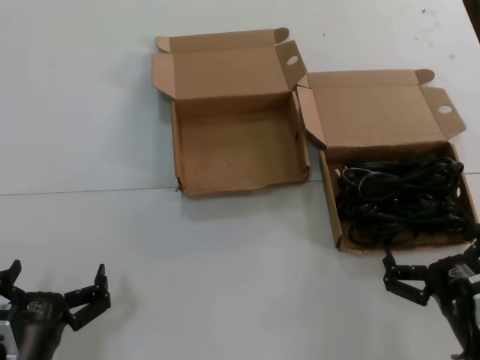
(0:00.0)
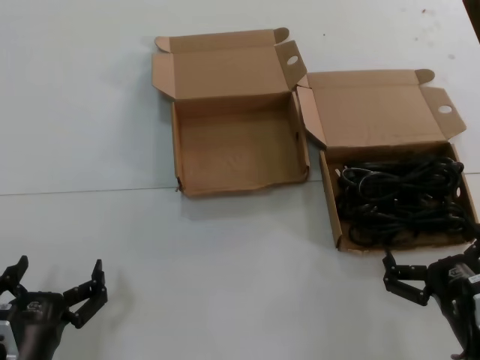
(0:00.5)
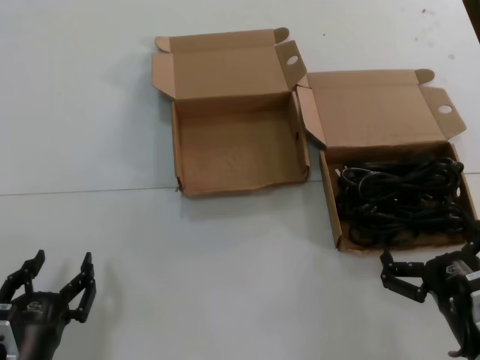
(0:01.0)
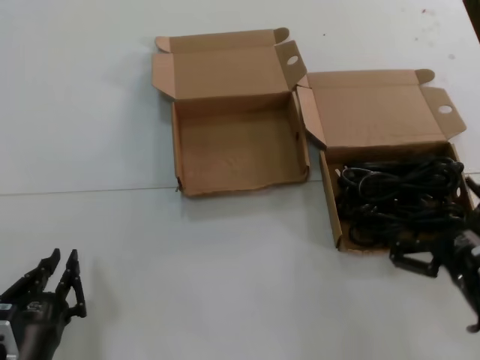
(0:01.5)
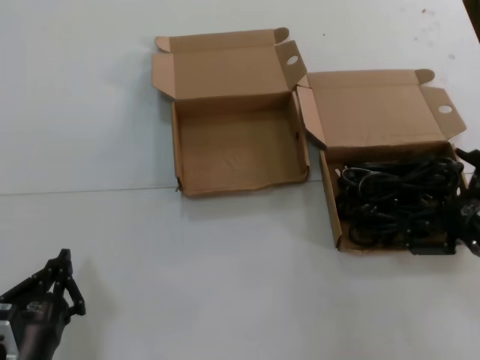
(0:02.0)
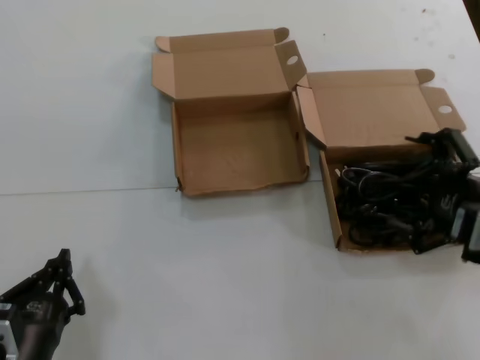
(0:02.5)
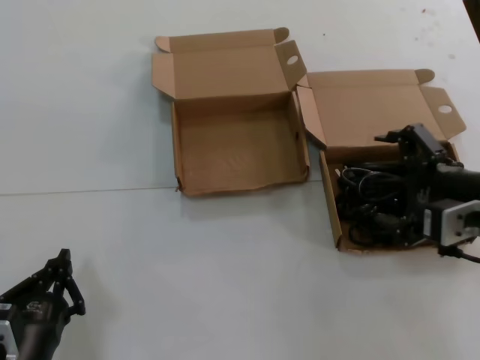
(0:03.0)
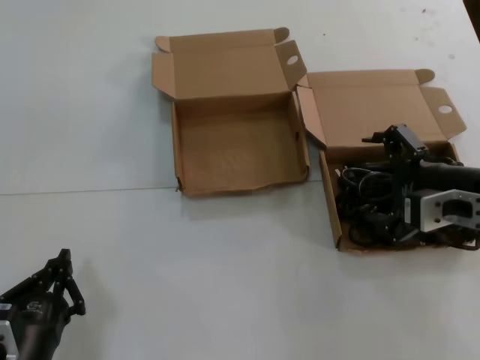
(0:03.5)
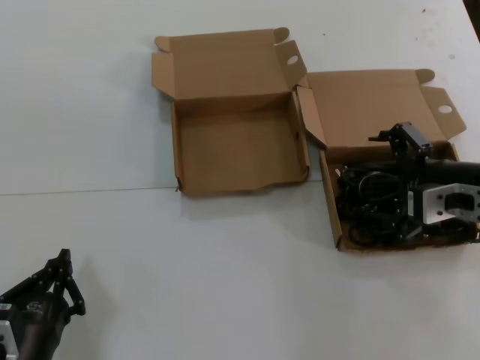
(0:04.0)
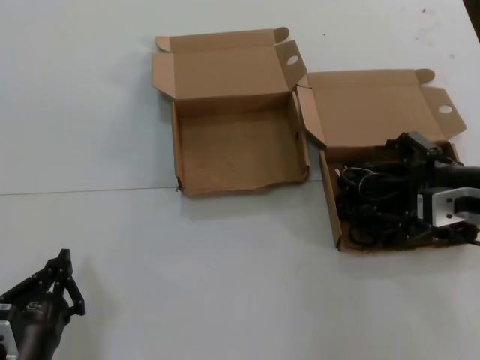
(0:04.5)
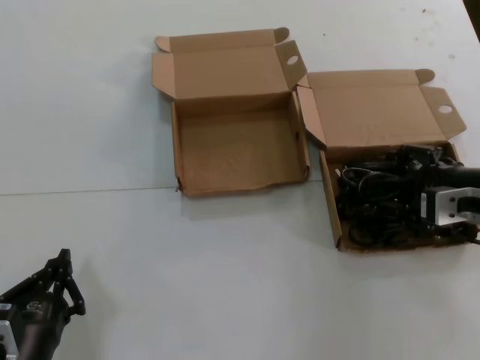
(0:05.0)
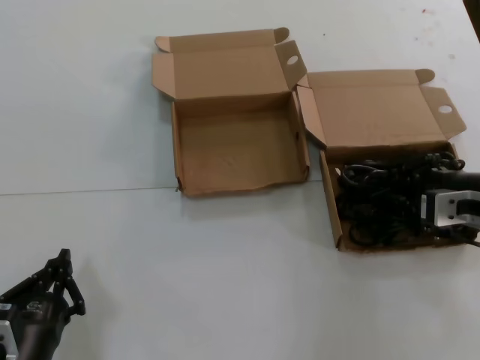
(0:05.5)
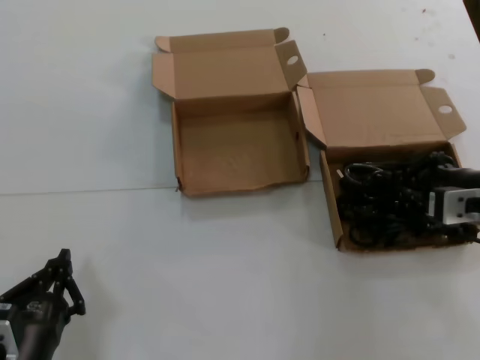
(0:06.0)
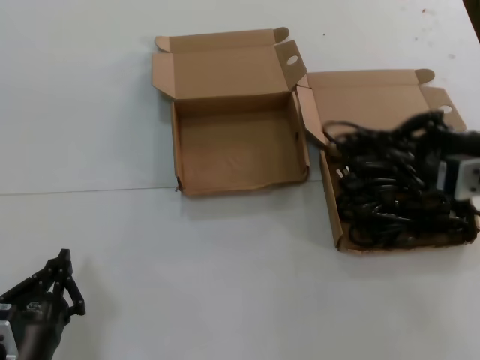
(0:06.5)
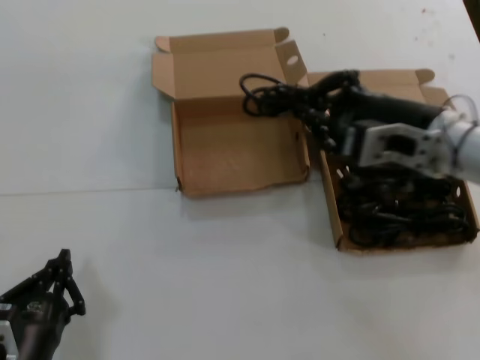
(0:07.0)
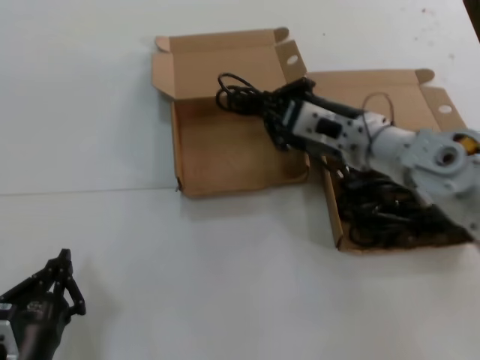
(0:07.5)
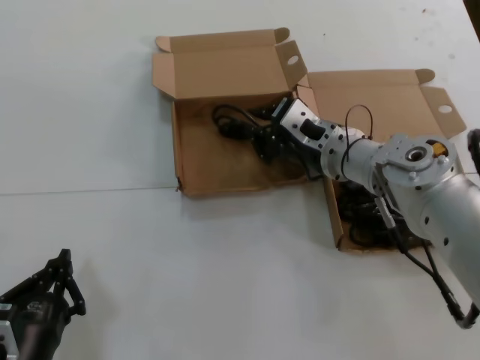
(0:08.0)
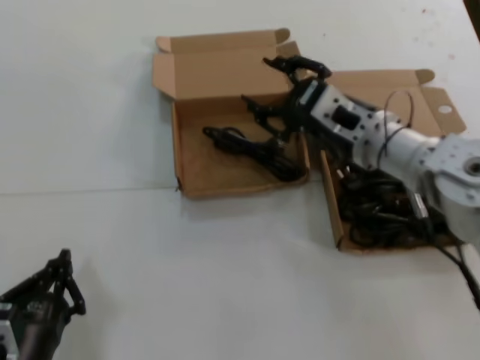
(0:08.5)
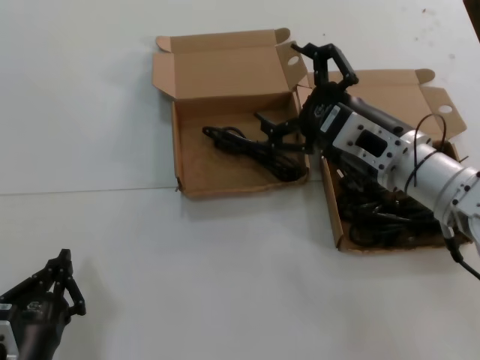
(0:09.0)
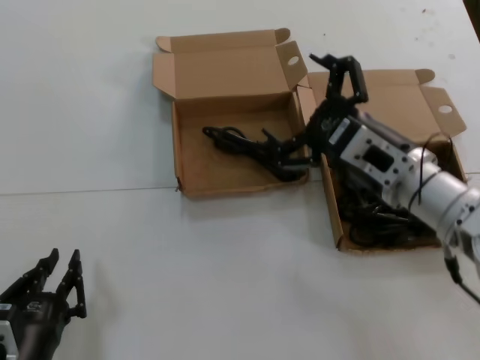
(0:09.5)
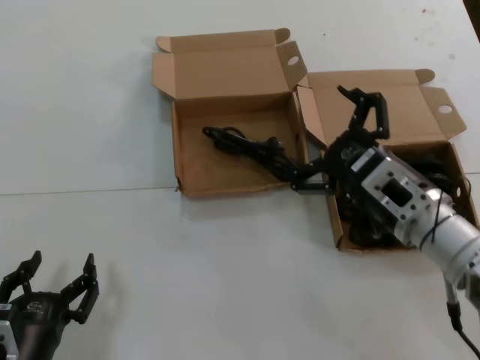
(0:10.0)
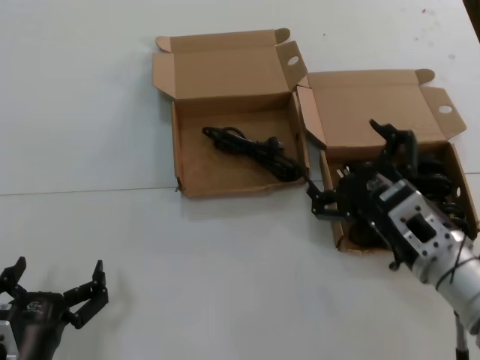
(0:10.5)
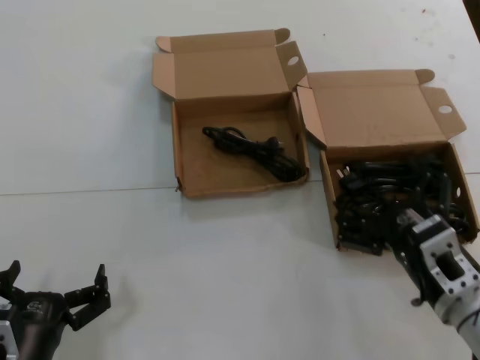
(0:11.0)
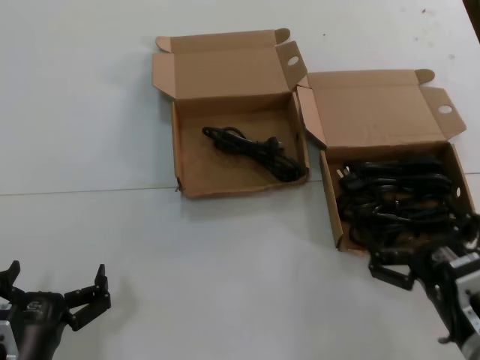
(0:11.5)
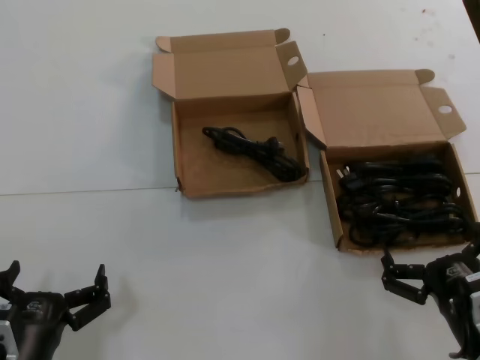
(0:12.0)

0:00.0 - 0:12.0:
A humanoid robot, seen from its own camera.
Task of the whole recording: take the parts from the box containing them and put them into an empty box.
Step, 0:00.0 - 0:05.5: Grasp the data cable.
Step, 0:06.0 - 0:08.0: Place the data cable in the another box.
0:00.0 - 0:02.0: The right hand heads upward and to the right, covering some 10 cm.
0:02.0 - 0:04.0: The right hand goes approximately 10 cm forward and upward.
0:04.0 - 0:06.0: The hands stay close to where they were, moving slightly.
0:06.0 - 0:08.0: The right hand shifts some 20 cm to the left and forward.
0:08.0 - 0:10.0: The right hand shifts roughly 15 cm backward and to the right.
0:10.0 - 0:12.0: The right hand is displaced backward, downward and to the right by approximately 20 cm.

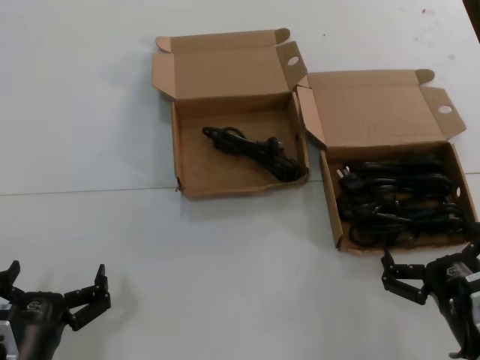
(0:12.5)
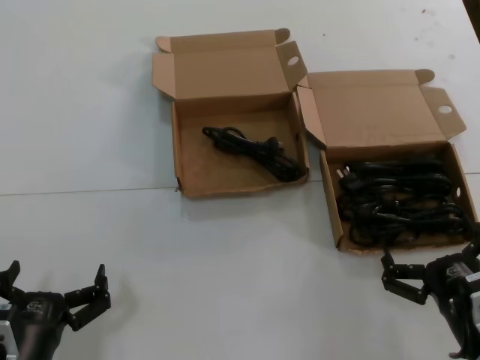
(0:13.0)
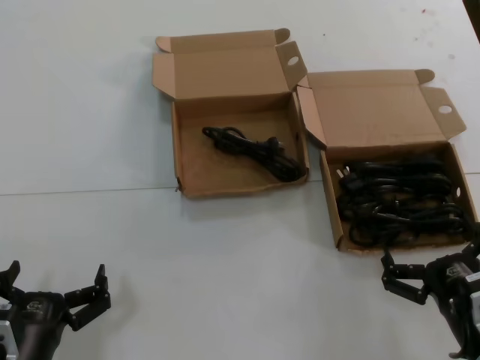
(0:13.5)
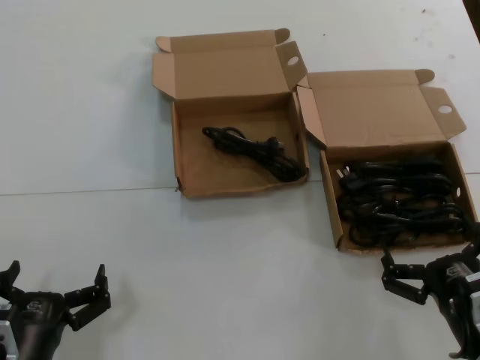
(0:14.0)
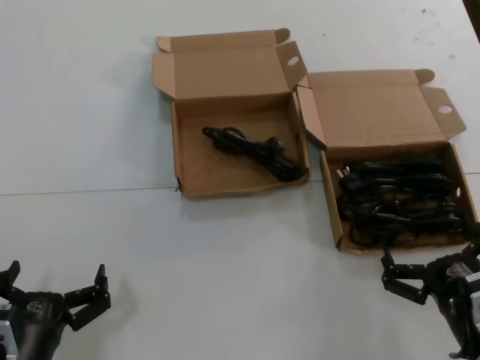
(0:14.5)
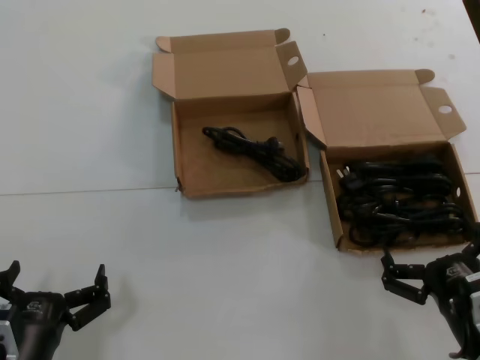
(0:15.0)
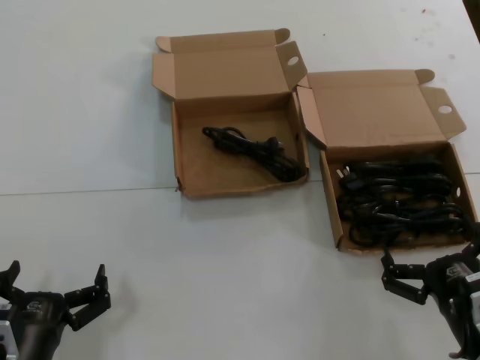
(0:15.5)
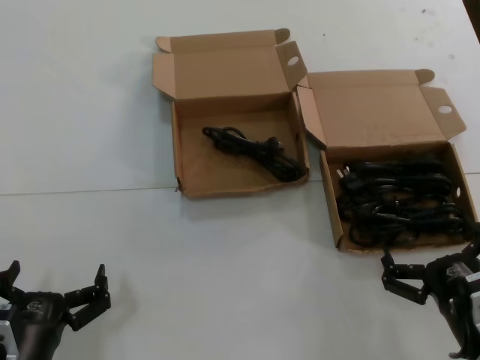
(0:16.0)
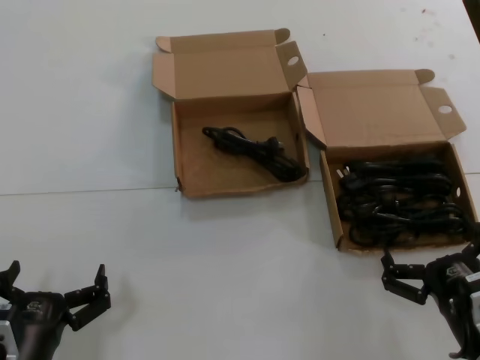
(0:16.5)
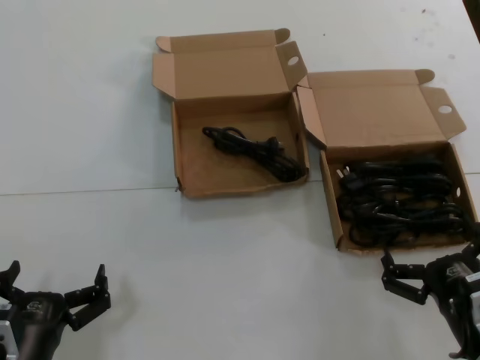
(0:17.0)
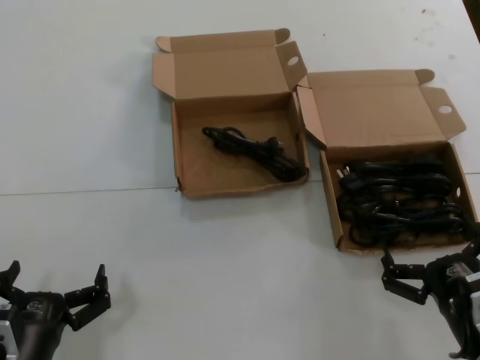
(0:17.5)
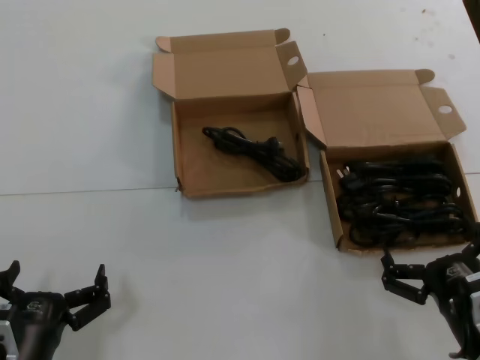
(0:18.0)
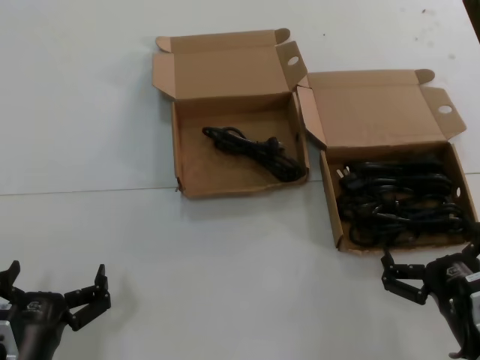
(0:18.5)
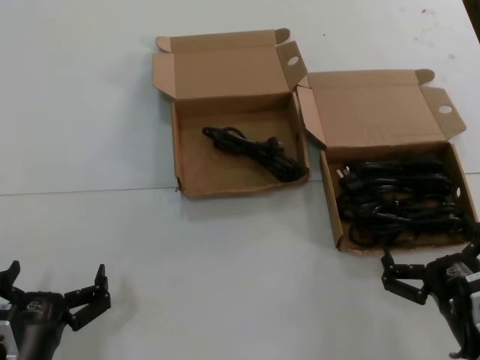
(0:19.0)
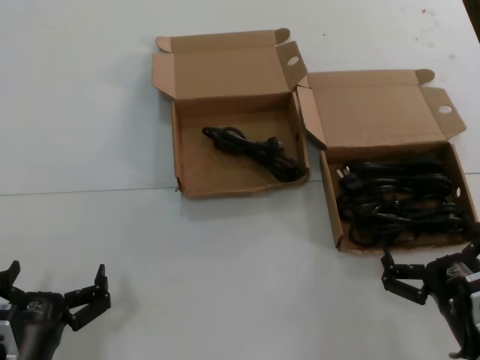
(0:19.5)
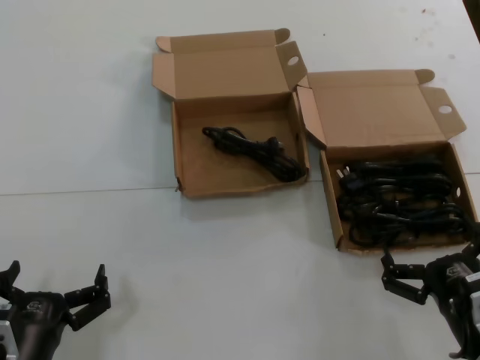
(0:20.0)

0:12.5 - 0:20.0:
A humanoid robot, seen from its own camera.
Task of the whole recording: take the parts from the box containing them and put them into an empty box.
0:12.5 - 0:20.0: Neither hand changes place.

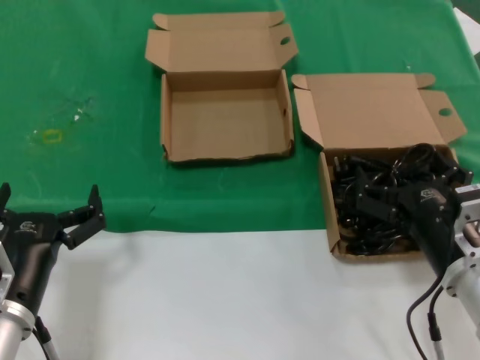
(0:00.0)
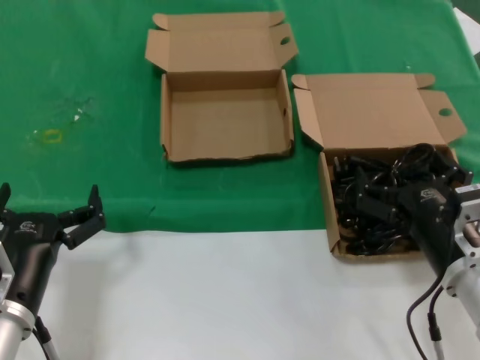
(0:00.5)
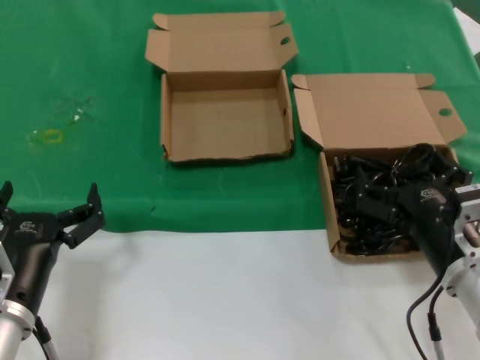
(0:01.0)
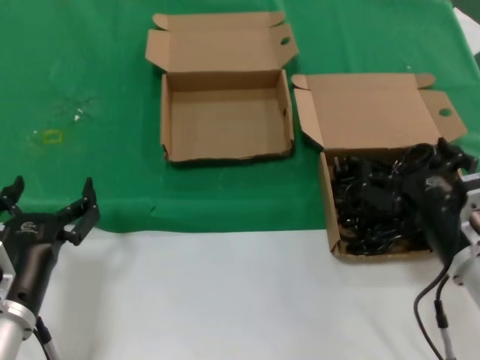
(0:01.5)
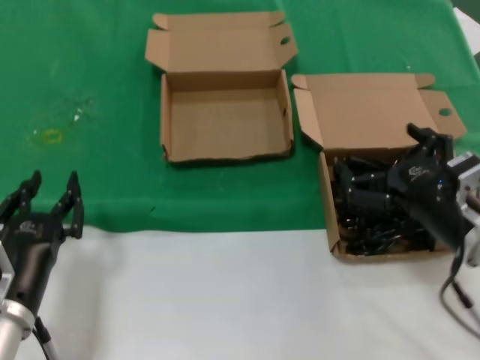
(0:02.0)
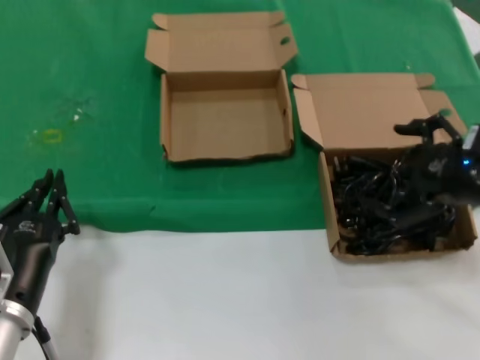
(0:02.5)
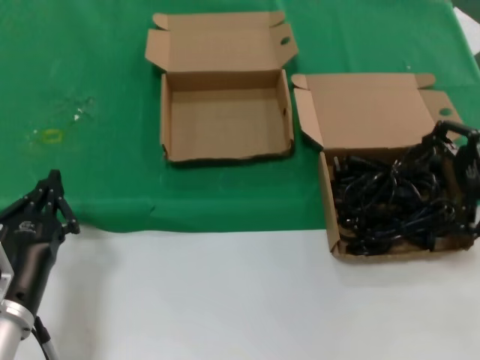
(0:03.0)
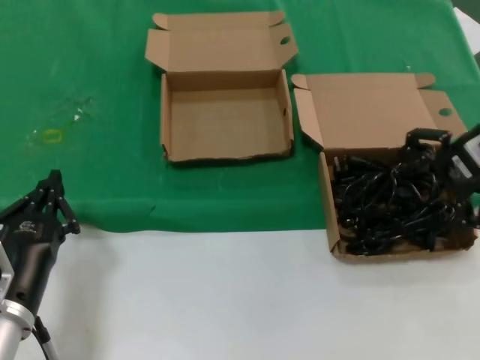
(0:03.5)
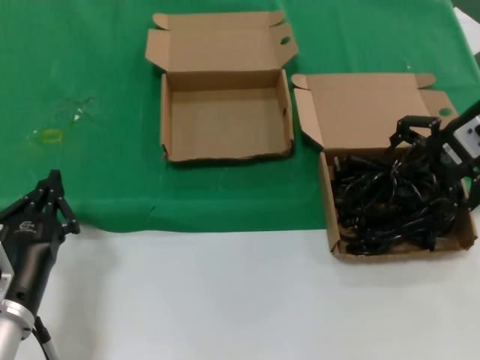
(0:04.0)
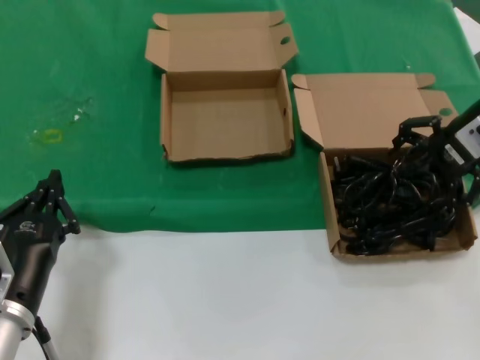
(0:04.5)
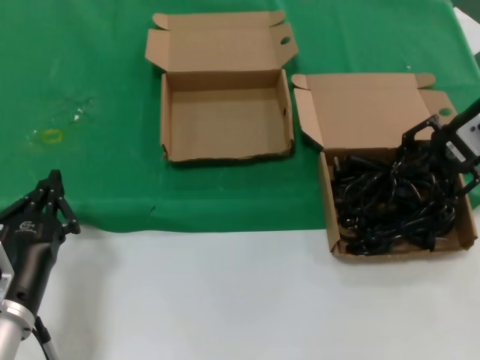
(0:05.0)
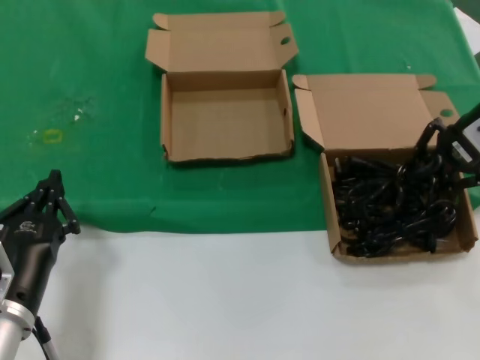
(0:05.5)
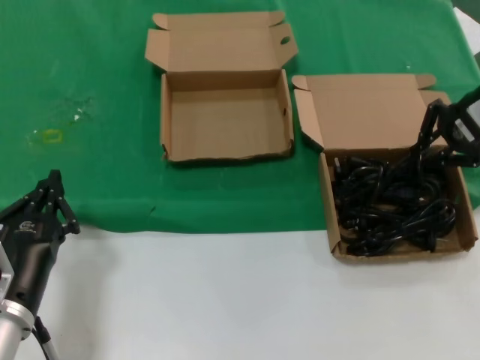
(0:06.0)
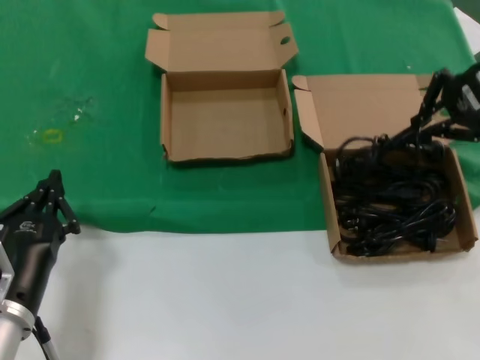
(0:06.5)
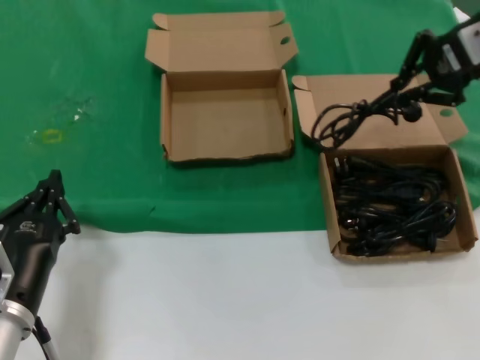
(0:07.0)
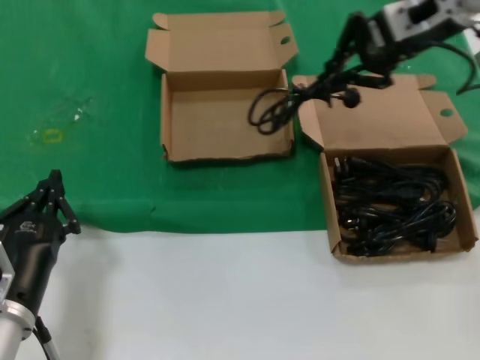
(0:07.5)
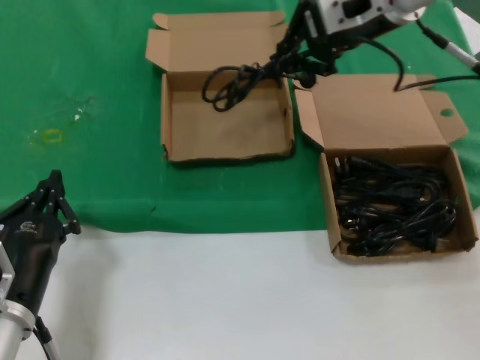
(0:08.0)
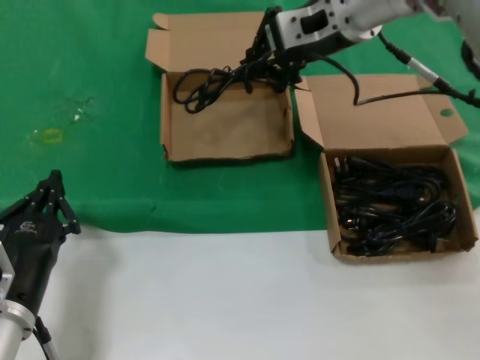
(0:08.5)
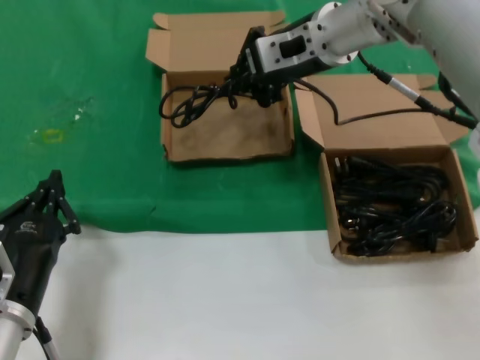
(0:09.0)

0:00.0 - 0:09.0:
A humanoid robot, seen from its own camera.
Task of the whole recording: take the parts from the box containing them and put them into an empty box.
Step, 0:00.0 - 0:05.5: Grasp the data cable.
0:00.0 - 0:02.0: The right hand shifts by some 5 cm.
0:02.0 - 0:04.5: The right hand heads forward and upward, covering roughly 25 cm.
0:04.5 - 0:07.0: The right hand is displaced upward by roughly 10 cm.
0:07.0 - 0:09.0: The right hand travels to the left by roughly 20 cm.
